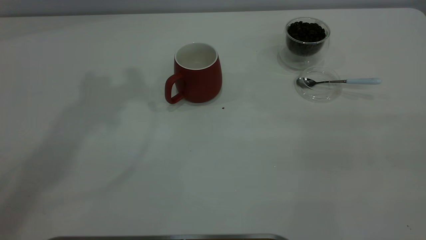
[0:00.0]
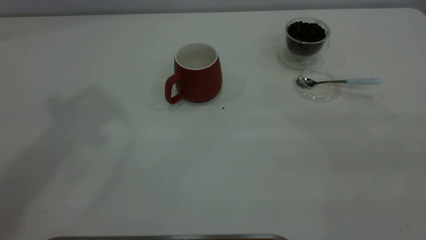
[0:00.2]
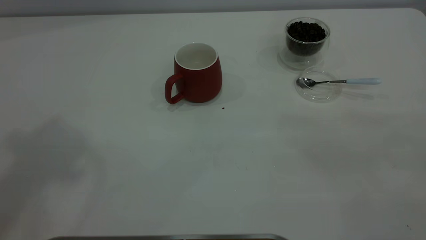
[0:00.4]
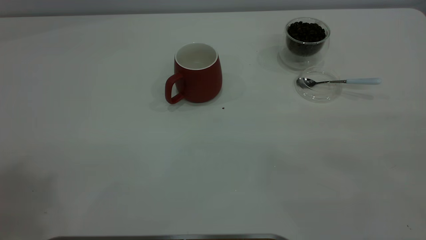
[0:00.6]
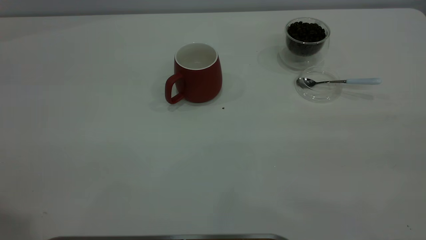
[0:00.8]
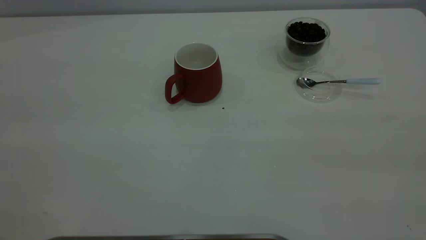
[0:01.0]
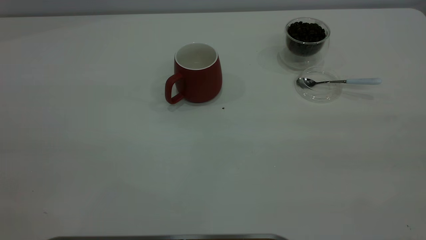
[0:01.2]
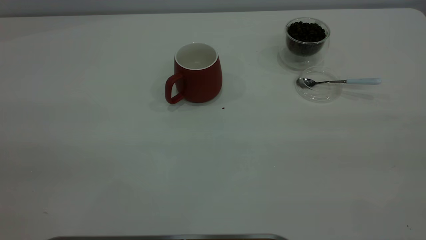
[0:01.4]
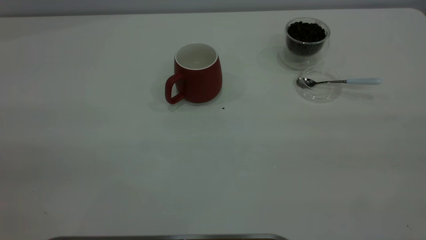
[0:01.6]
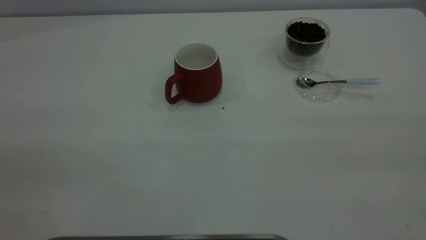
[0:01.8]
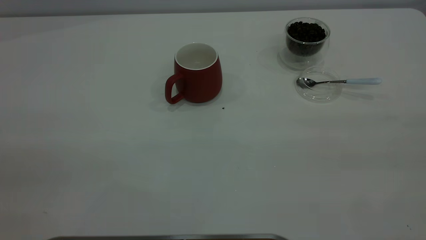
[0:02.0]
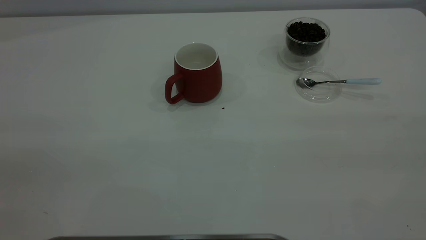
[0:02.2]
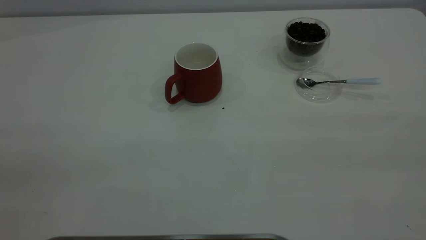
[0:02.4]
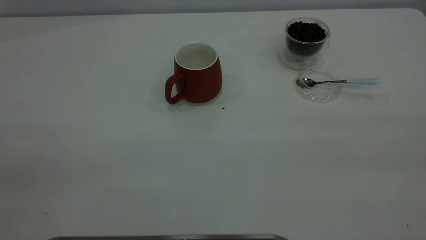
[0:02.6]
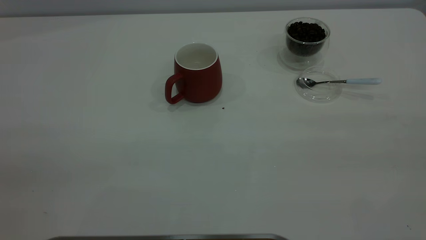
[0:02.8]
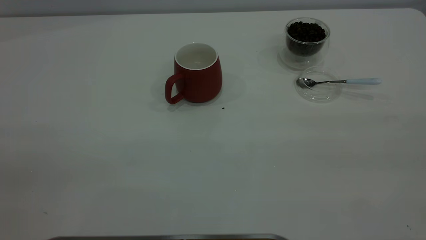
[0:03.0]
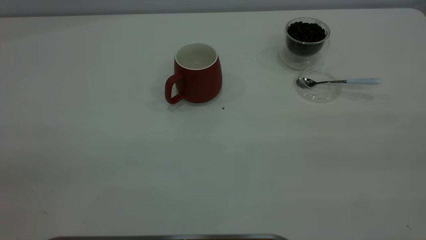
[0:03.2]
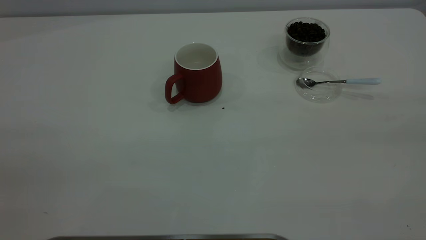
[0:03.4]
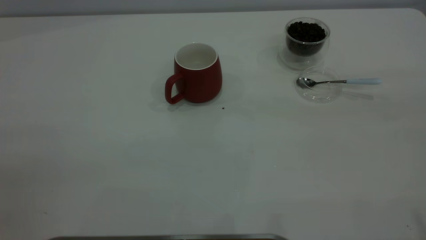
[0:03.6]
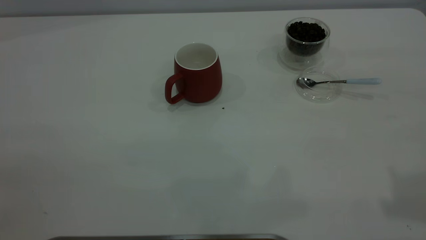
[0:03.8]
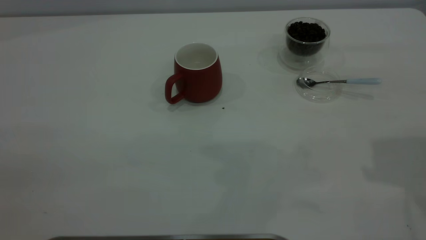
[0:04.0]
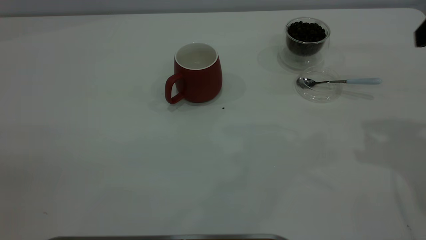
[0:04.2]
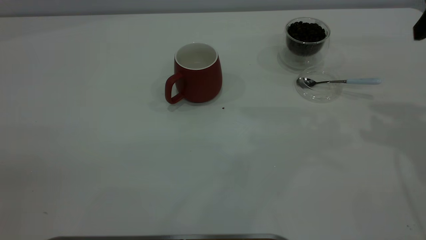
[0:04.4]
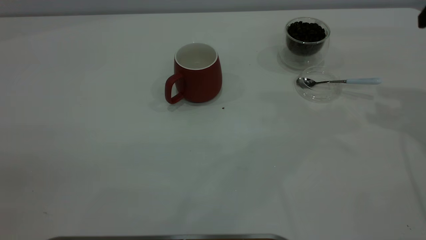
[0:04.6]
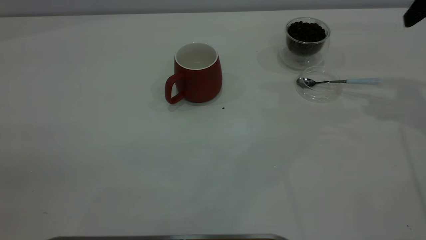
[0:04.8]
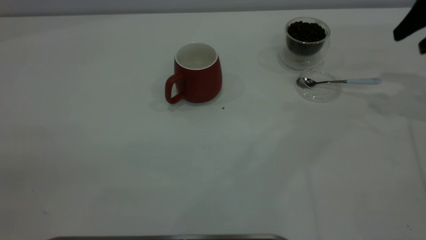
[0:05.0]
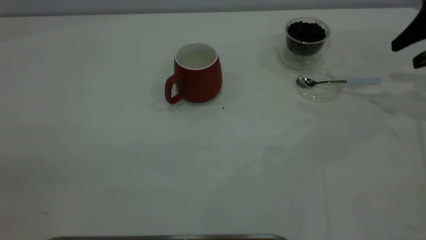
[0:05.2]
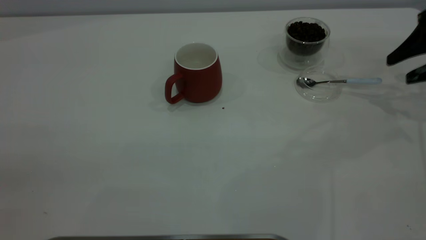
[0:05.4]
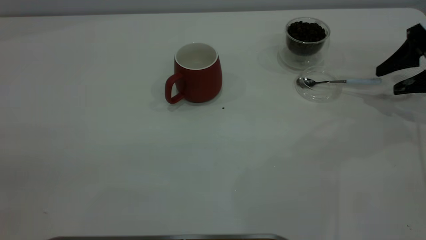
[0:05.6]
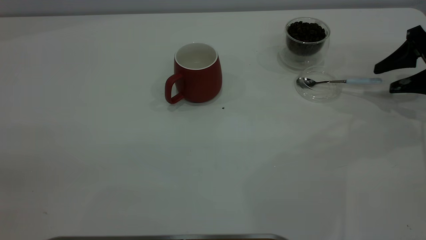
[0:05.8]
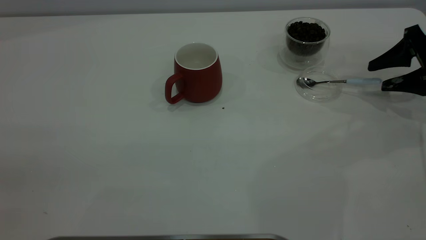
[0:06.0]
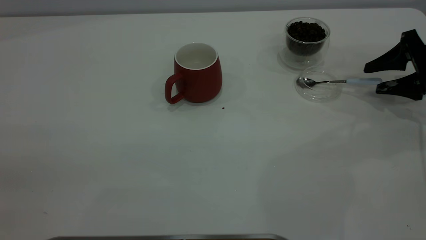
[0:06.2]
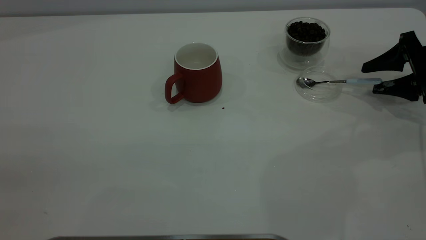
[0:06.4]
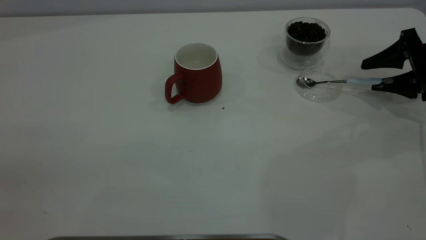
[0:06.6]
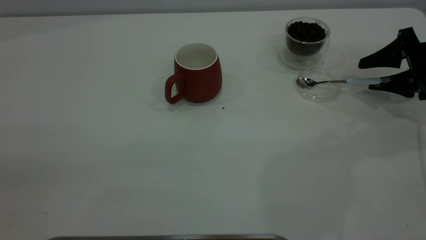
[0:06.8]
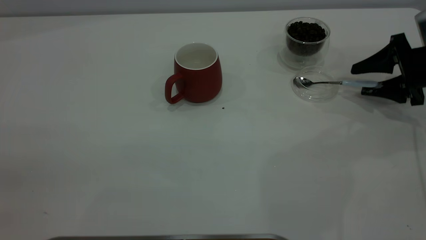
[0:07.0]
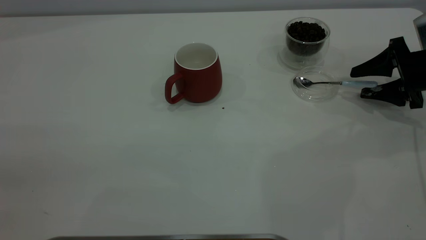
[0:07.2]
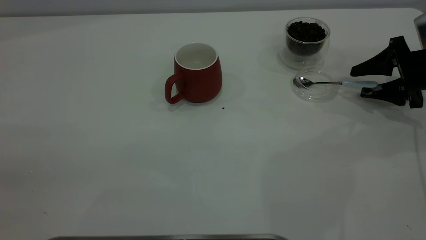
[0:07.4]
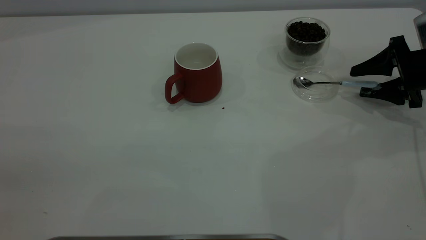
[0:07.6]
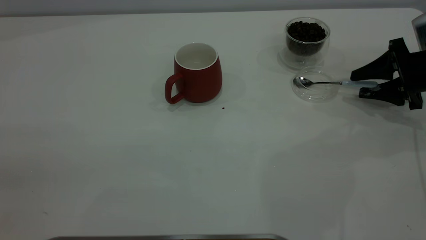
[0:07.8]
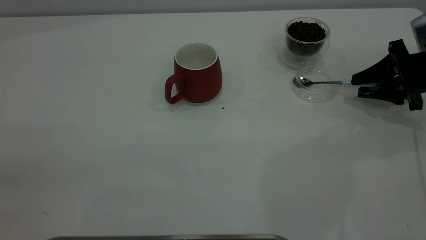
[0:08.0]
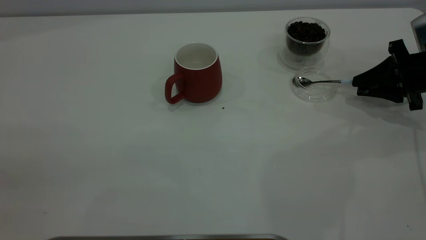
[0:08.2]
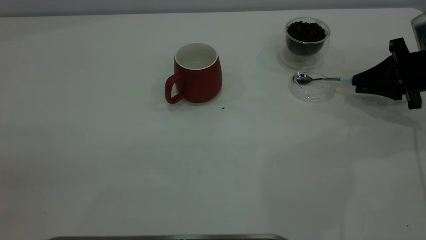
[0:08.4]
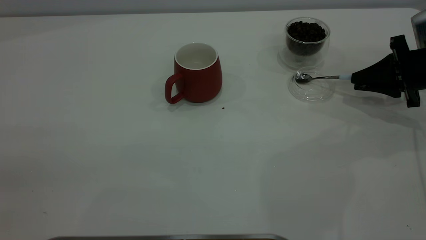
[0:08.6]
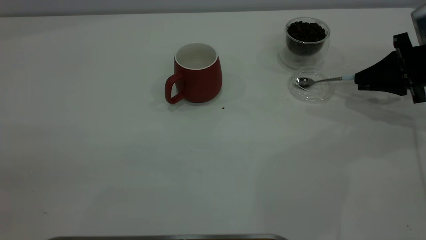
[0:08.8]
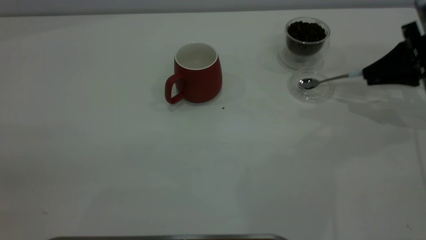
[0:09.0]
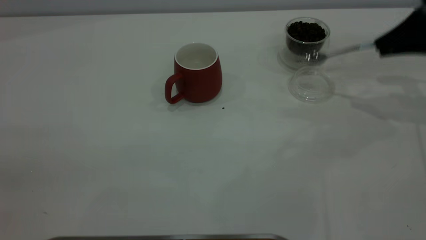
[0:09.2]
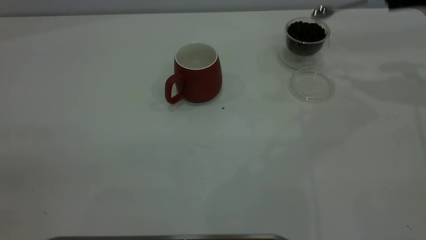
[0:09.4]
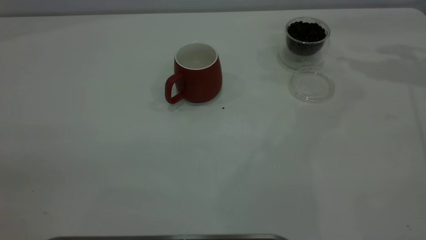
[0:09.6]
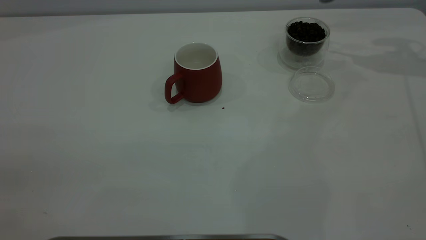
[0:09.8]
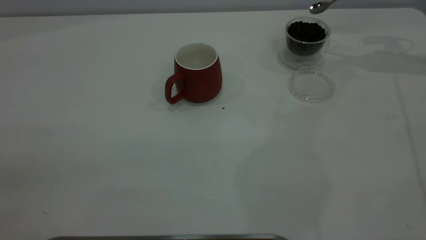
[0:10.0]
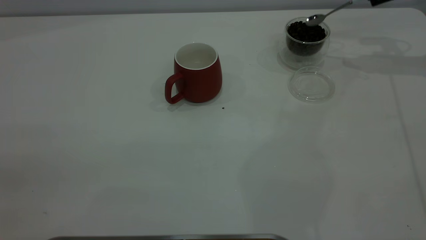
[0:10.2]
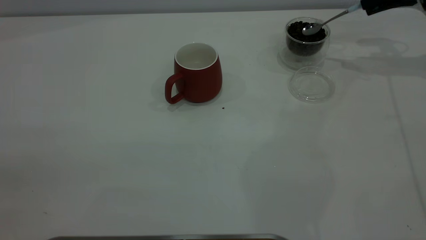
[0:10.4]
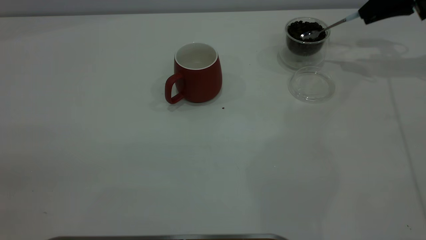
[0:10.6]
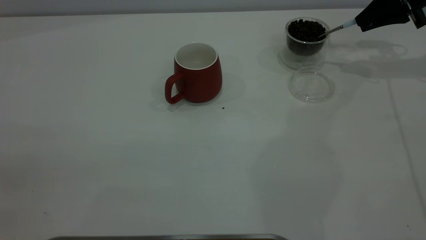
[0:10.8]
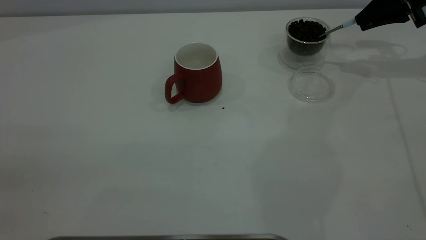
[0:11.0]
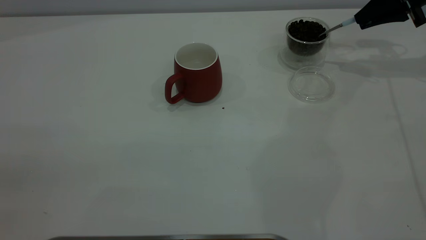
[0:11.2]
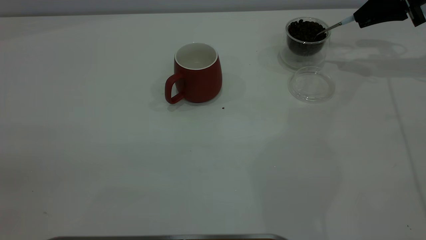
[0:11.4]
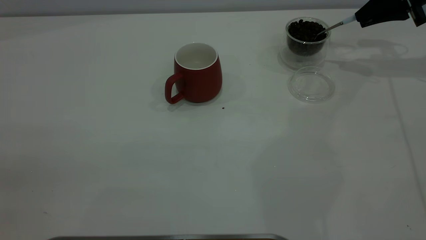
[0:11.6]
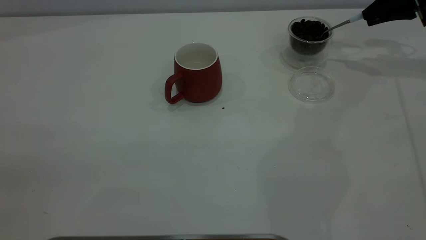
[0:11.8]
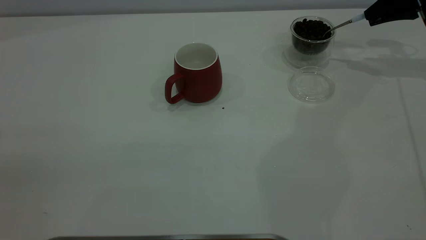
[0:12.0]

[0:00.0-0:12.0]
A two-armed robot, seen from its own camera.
Task of the whole recording: the left gripper place the red cup in the center of the table, the right gripper take the blue spoon from the cup lid and scoop out the coffee beans from the coffee cup and put them into the red cup, the right gripper put the spoon back into the cup lid.
Step, 0:00.0 to 0:09.0: Pick up the spoon.
0:04.4 to 0:06.0: The right gripper heads downward and forward, covering about 20 cm.
0:06.0 to 0:07.6: The grippers move only a little.
0:07.6 to 0:09.0: The right gripper moves upward, approximately 5 cm, and closes up.
0:09.0 to 0:10.4: The right gripper moves forward and upward, about 15 cm.
0:10.4 to 0:12.0: The grippers stay close to where they were, moving slightly.

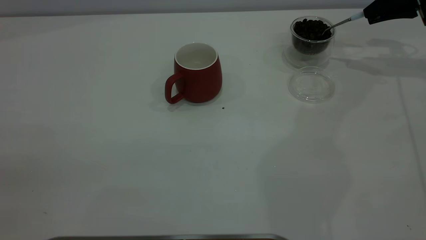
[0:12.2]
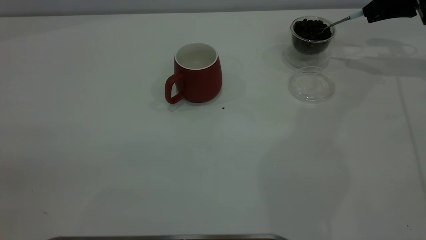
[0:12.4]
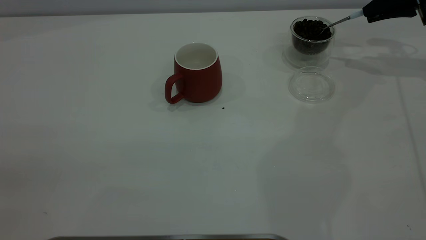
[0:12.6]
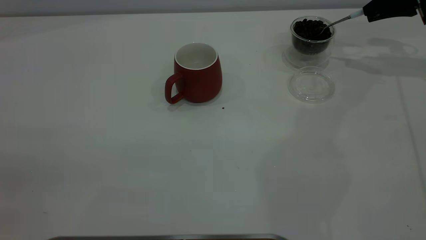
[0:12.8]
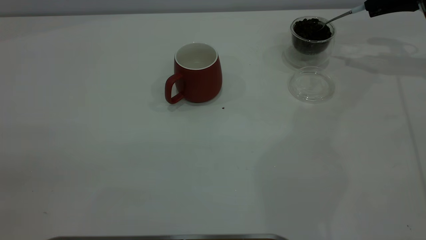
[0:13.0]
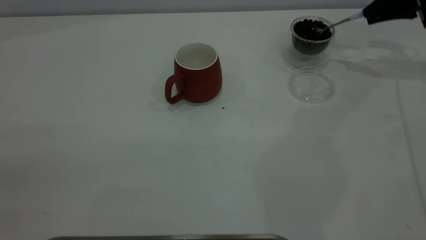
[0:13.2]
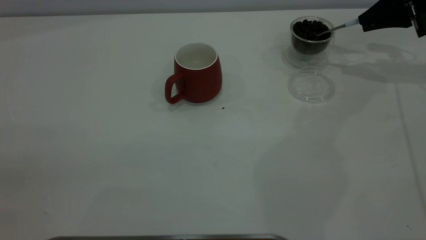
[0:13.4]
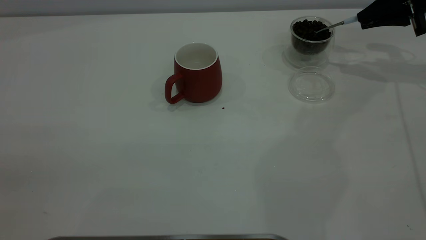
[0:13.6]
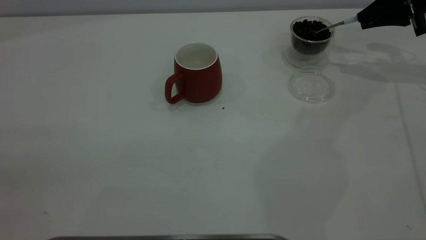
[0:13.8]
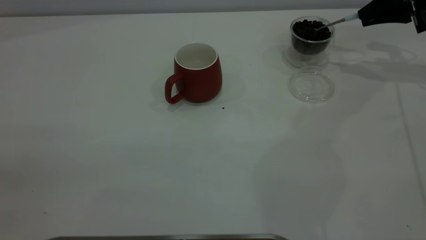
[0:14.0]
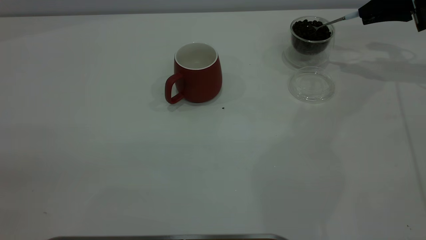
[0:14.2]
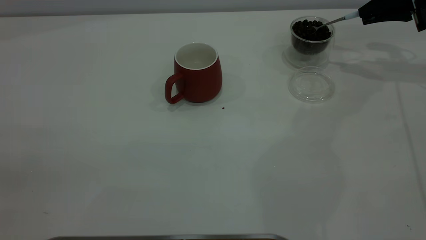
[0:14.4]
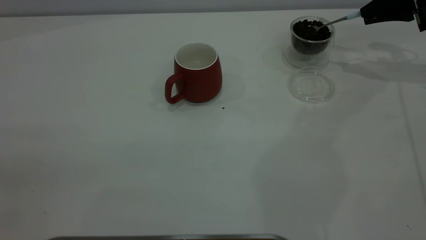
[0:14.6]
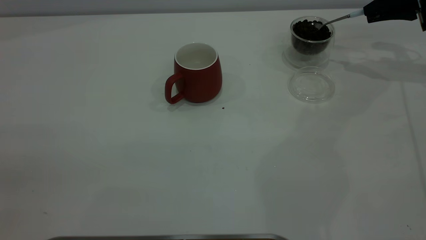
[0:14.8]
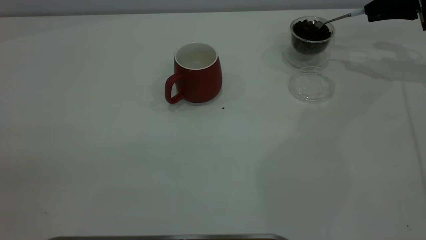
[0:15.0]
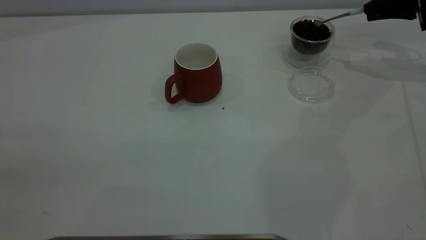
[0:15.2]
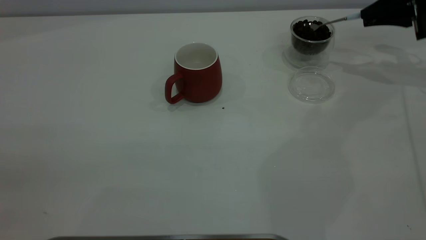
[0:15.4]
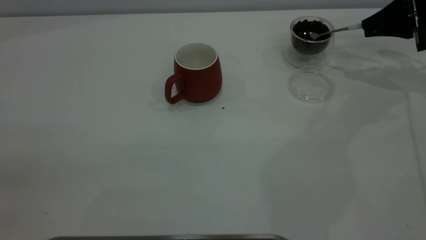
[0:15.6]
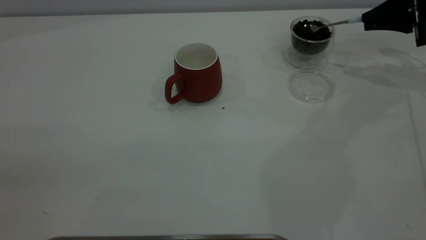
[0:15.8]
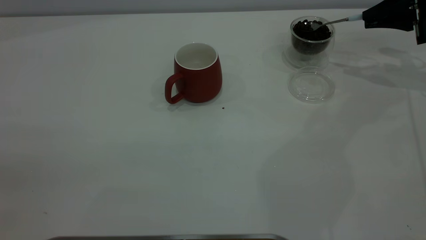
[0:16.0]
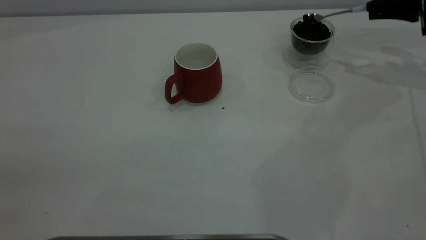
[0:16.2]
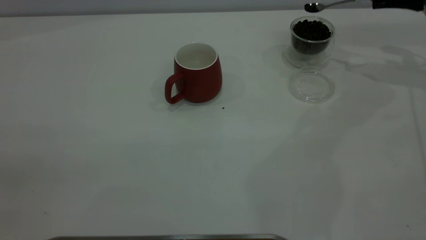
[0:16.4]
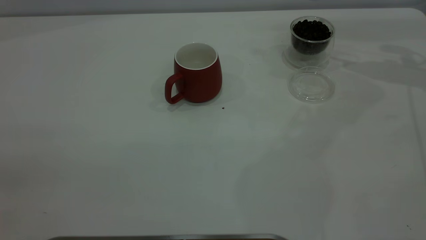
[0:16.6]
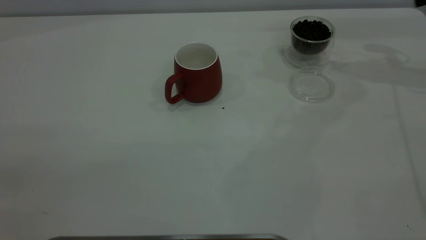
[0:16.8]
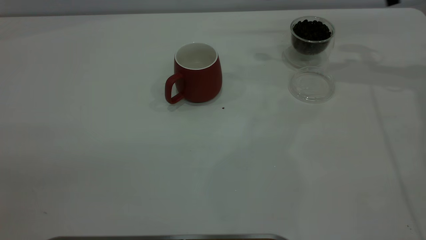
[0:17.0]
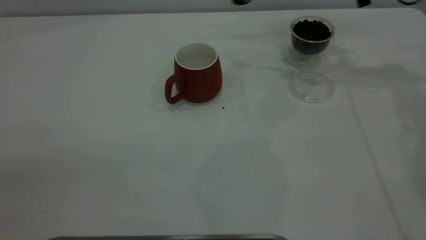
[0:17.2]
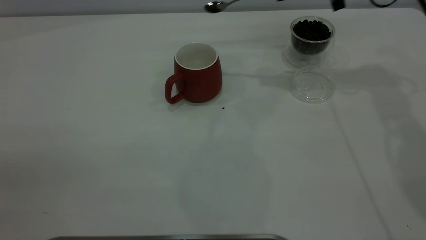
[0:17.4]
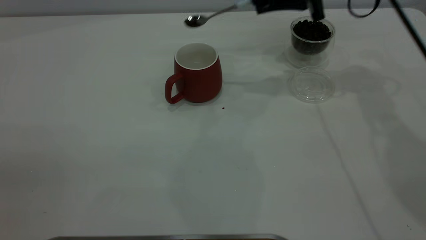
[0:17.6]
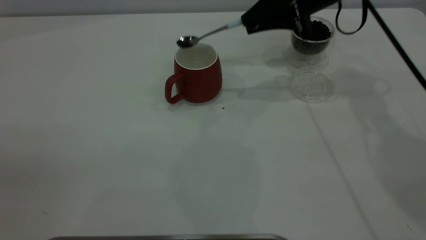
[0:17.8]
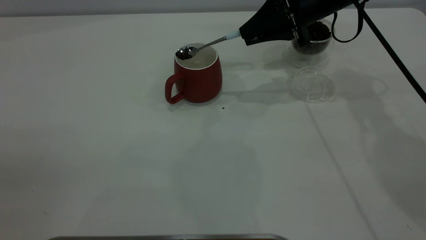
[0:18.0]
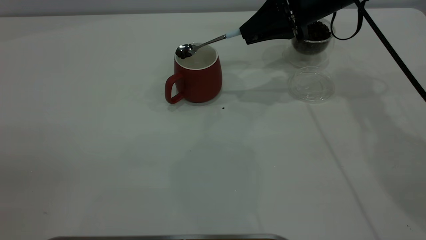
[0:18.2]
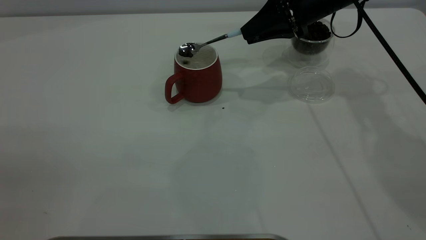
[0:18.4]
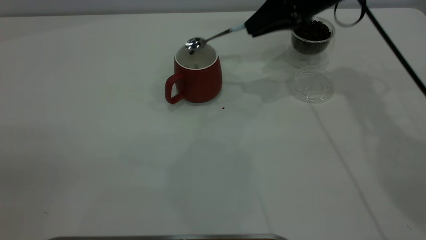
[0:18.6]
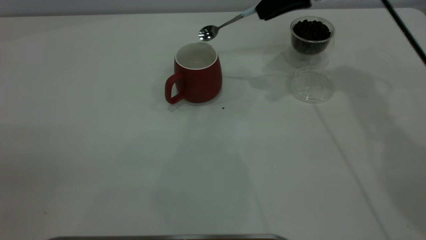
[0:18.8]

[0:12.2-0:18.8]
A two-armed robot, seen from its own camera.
Task of the whole recording: the left gripper place the red cup in the center of the table, the right gripper take the blue spoon from the cup lid and scoop out the coffee beans from the coffee cup and put them into the red cup, the right gripper put the spoon back into the cup lid.
Step, 0:12.2 to 0:18.8: Scoop a spoonful of beans into the cup.
0:15.4 to 0:17.2: The right gripper is displaced to the left and upward by some 15 cm.
0:17.2 to 0:18.8: The right gripper shifts roughly 5 cm to the left.
